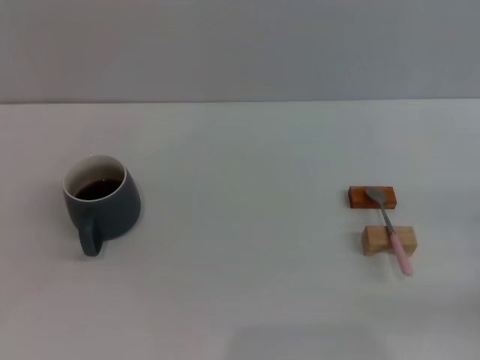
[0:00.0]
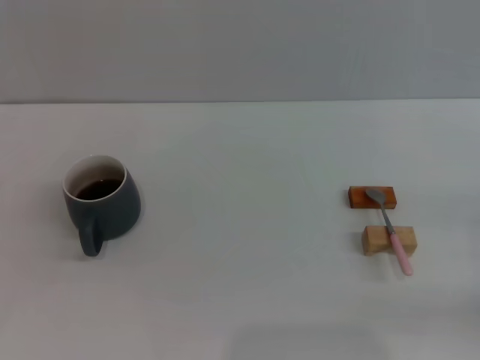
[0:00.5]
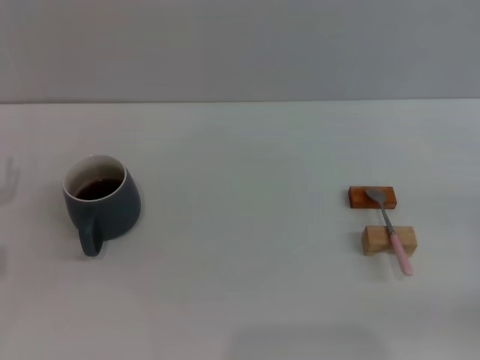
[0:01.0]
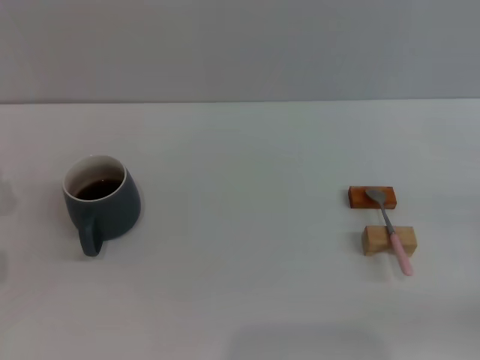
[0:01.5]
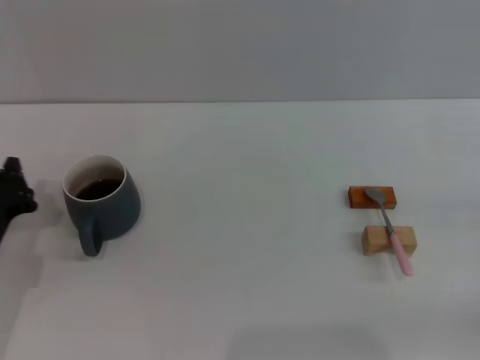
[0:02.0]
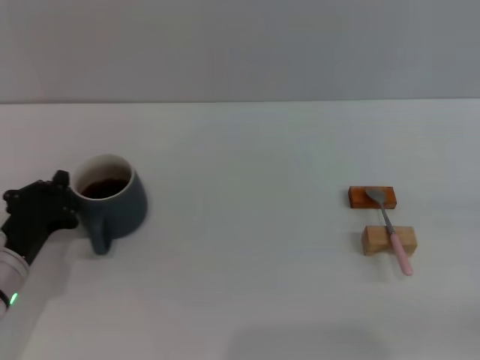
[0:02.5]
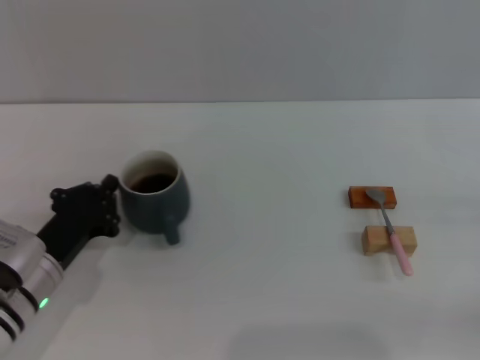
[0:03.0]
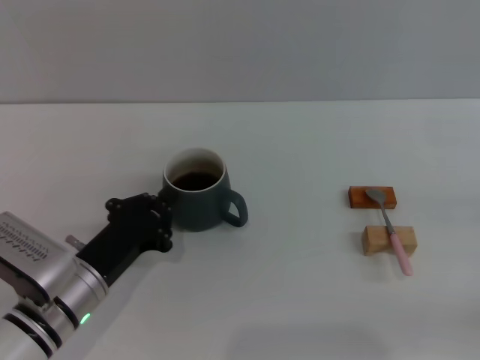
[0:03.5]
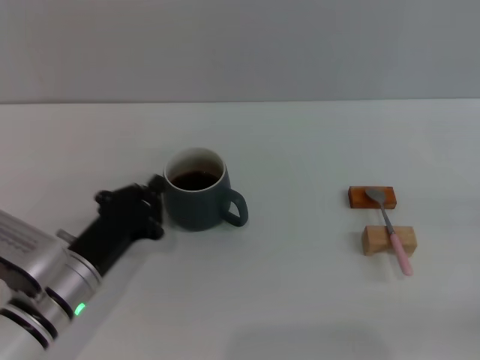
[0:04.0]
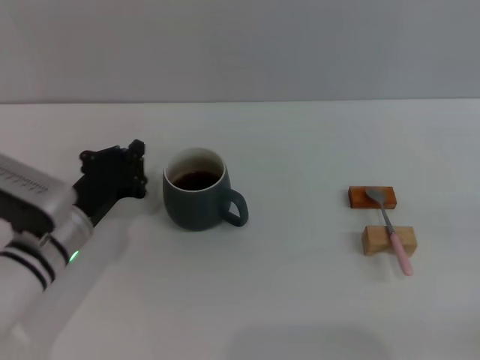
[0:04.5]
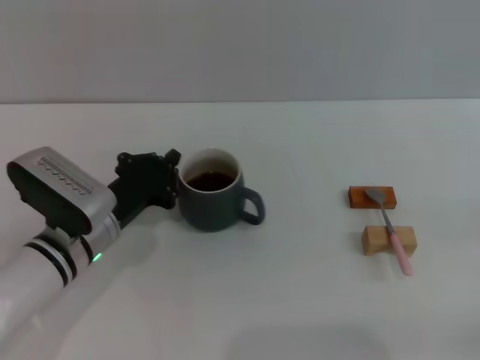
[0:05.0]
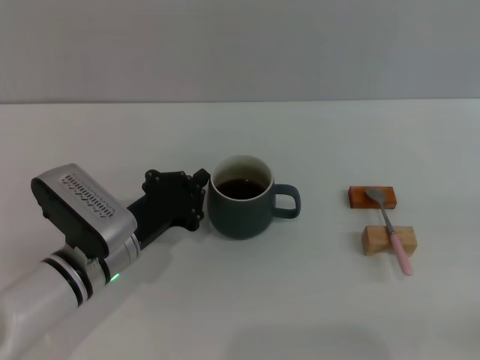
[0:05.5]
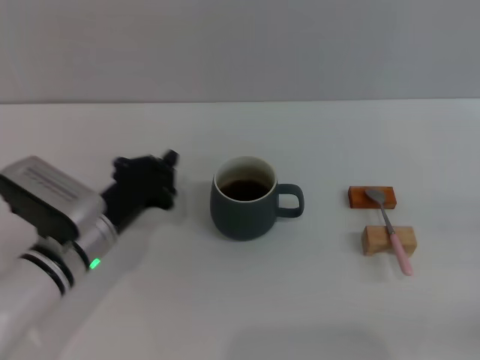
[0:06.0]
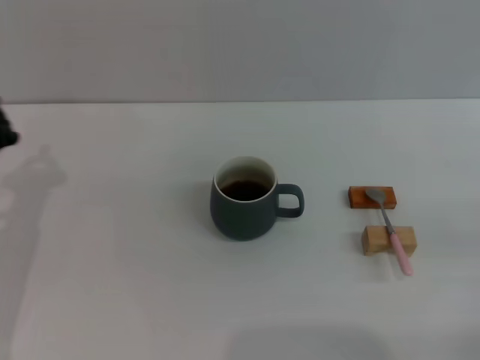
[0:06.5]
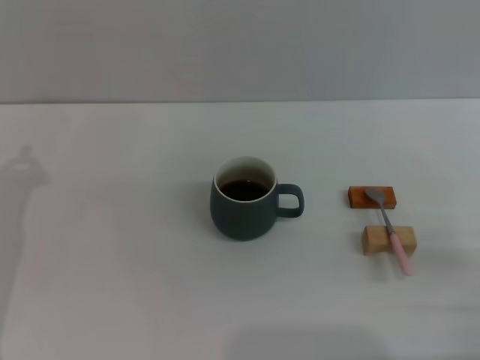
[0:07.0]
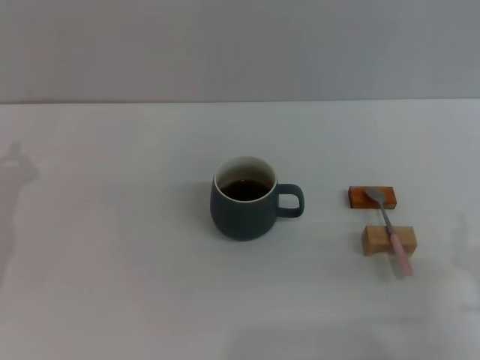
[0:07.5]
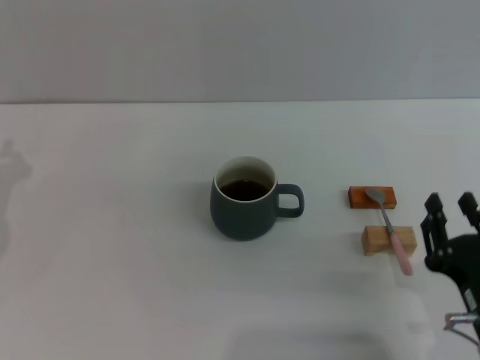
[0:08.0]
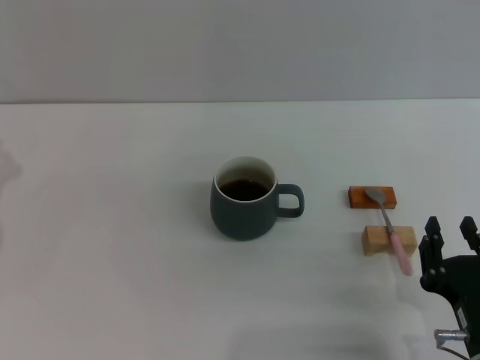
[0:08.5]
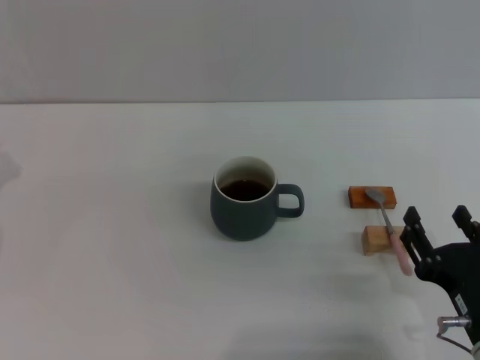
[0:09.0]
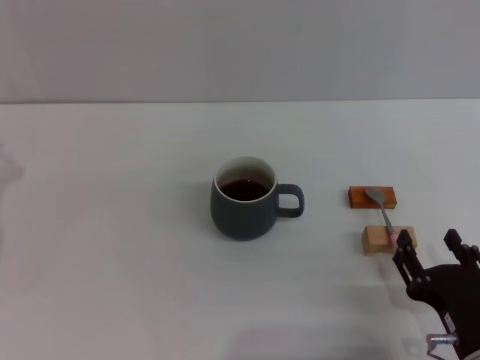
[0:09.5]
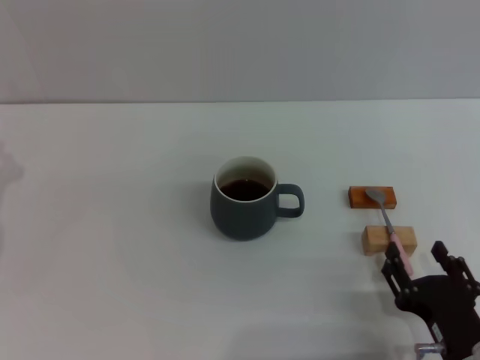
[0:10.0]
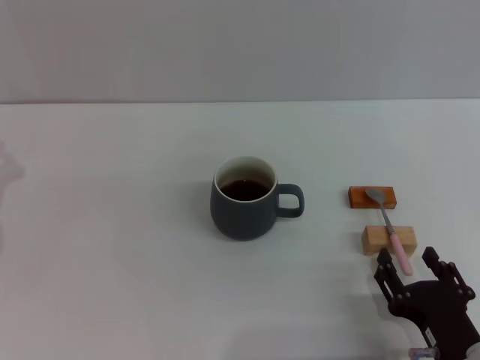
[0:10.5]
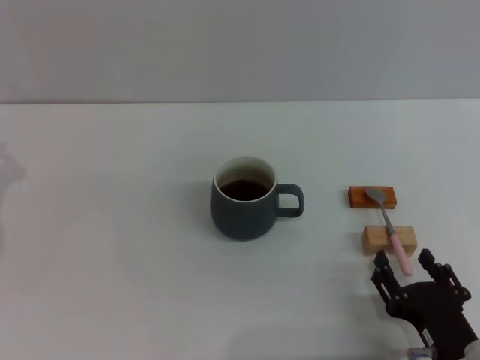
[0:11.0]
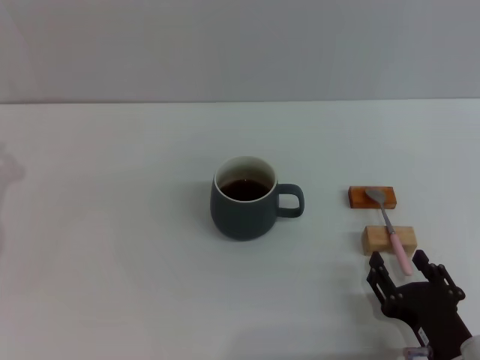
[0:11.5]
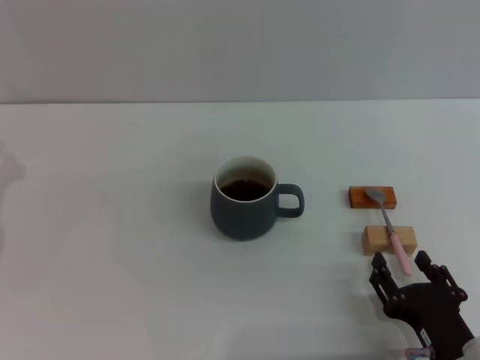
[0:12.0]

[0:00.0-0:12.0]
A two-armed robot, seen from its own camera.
Task of the whole recording: Move the grey cup to the center, lift the pink spoon, stir it three times in the cup, and put the spoon into the cup.
Step, 0:00.0 to 0:05.5: Move the cup with coffee to the center of view with the left gripper.
0:00.0 to 0:02.0: The left gripper moves to the right and downward, roughly 10 cm, and closes its fingers.
0:02.0 to 0:04.0: The left gripper shifts about 10 cm to the right.
0:06.0 to 0:08.0: Both grippers move to the left, approximately 15 cm.
0:08.0 to 0:10.0: The right gripper opens.
0:10.0 to 0:12.0: The grippers make only small movements.

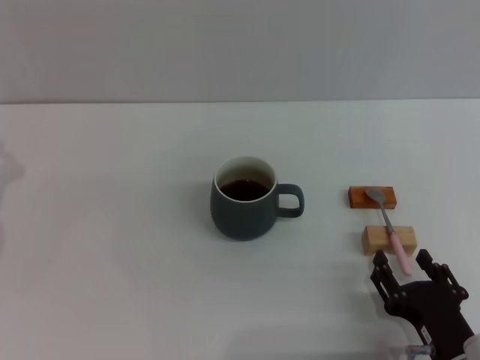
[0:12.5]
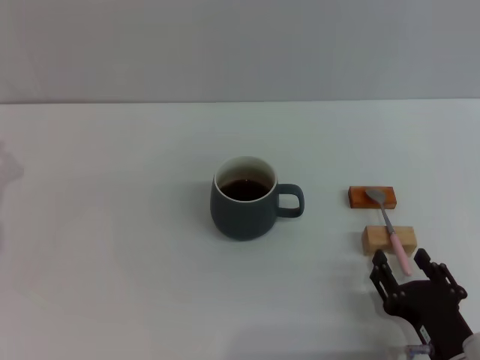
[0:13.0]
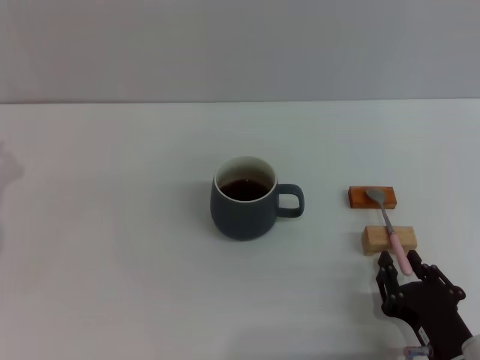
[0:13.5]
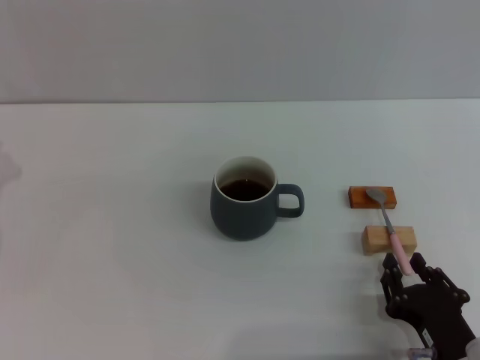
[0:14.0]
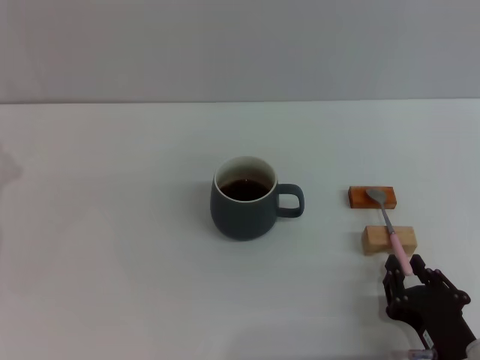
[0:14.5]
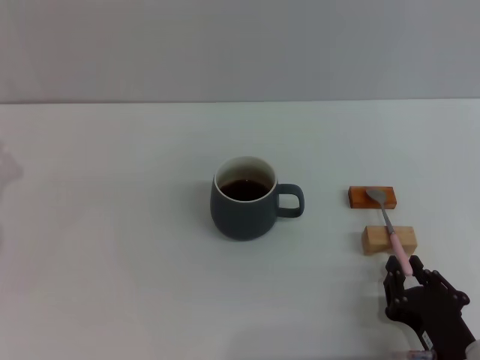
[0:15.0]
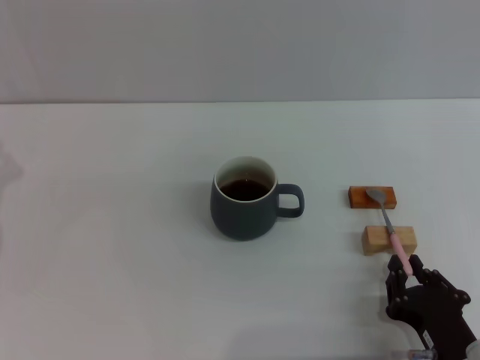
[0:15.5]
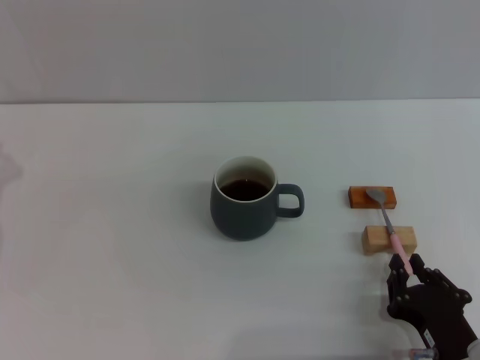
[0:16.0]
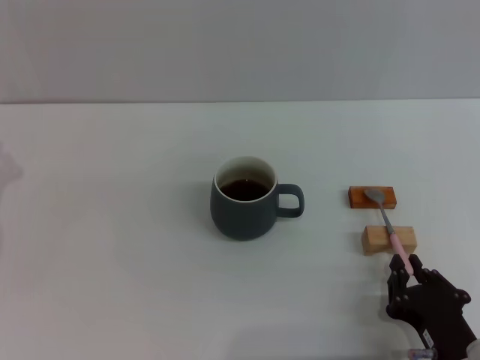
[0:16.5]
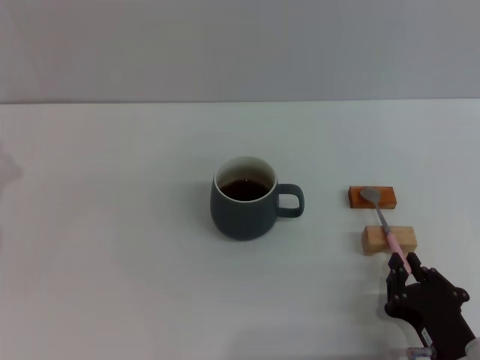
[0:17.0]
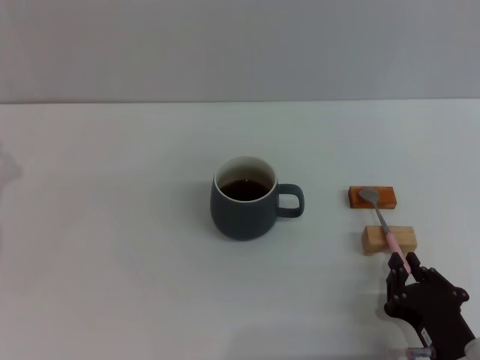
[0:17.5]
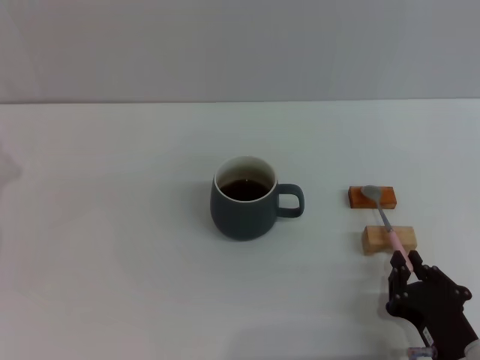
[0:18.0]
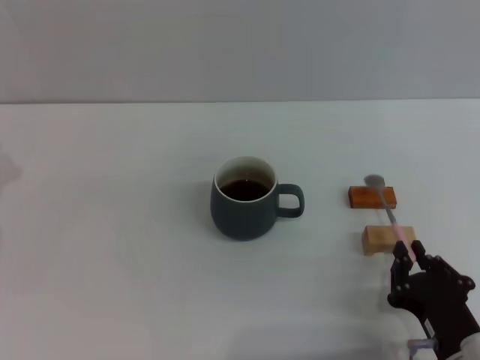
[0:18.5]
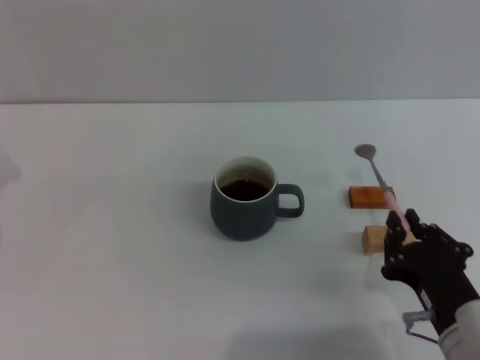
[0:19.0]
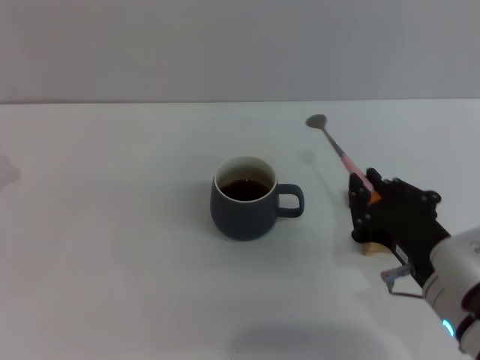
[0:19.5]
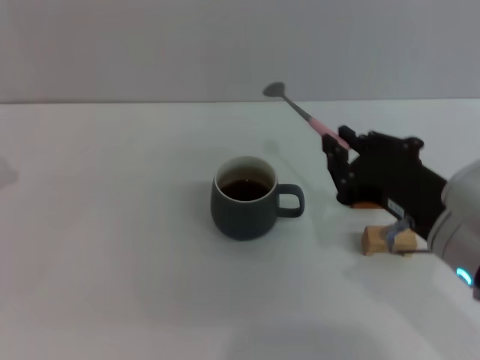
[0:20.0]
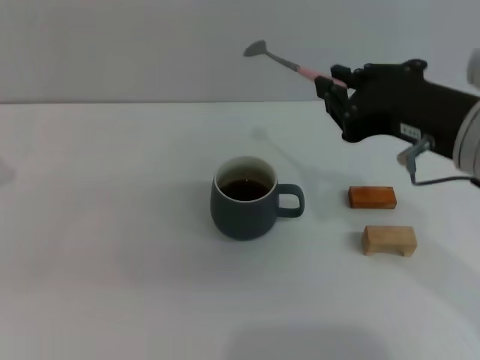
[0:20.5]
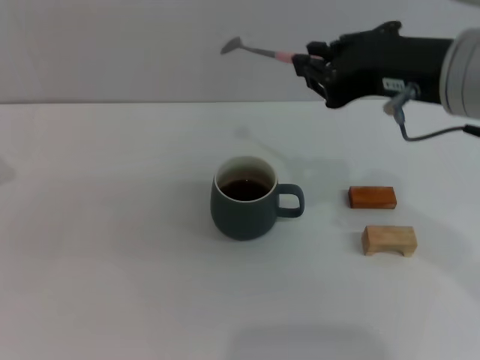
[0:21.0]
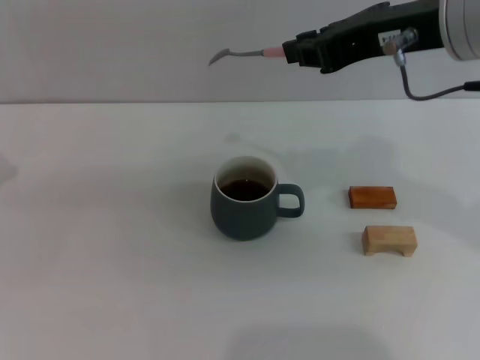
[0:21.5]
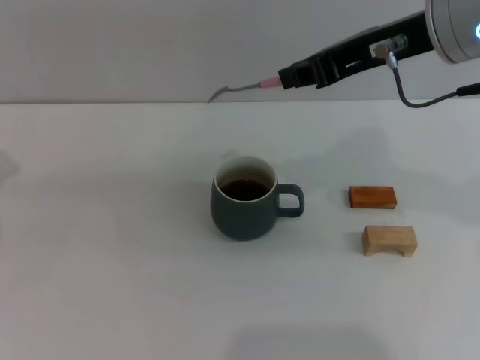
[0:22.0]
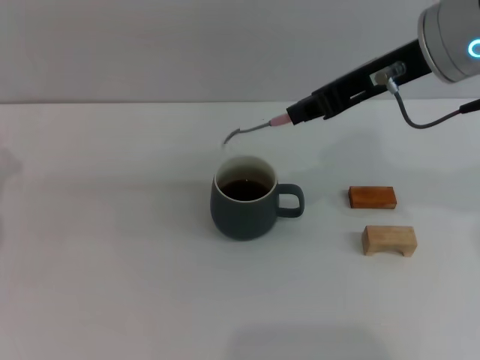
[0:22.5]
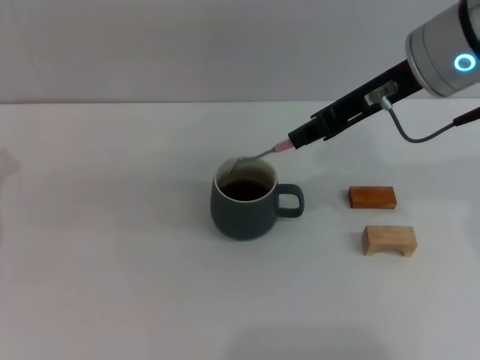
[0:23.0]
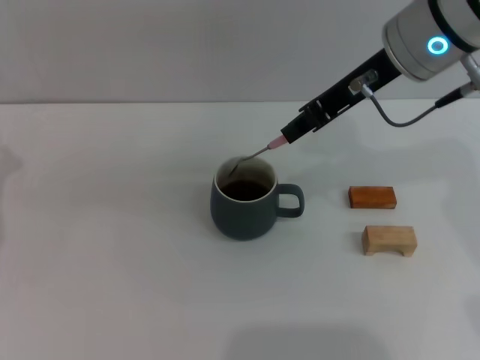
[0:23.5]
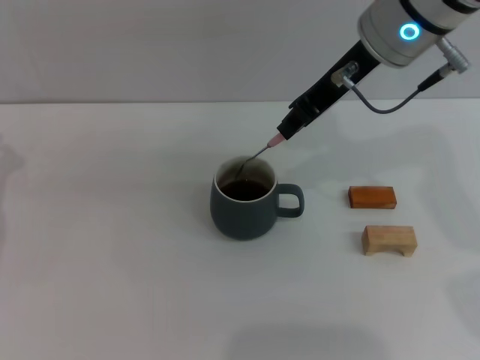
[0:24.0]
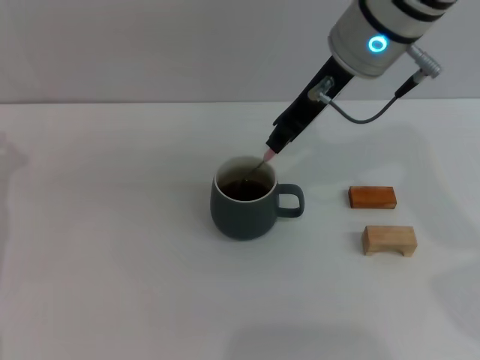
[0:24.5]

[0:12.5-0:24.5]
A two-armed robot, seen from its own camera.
Task of the whole recording: Move the grey cup to the center, lift the pink spoon, stir it three times in the cup, and put the spoon into the cup.
Step, 0:12.5 to 0:18.5: Pick up the spoon with the right gripper.
0:12.5 to 0:14.5: The right gripper closes its fingers.
0:14.5 to 0:16.5: Both grippers stay put.
0:16.5 to 0:18.5: The grippers stay close to where they were, moving slightly.
0:18.5 to 0:20.5: The right gripper moves upward and forward, about 25 cm.
0:20.5 to 0:22.5: The right gripper goes approximately 10 cm forward and upward.
0:22.5 to 0:24.5: The right gripper is displaced to the left and forward by about 10 cm.

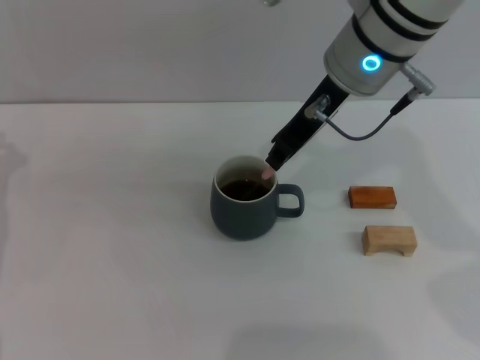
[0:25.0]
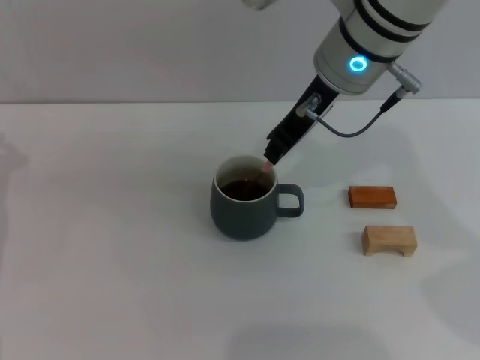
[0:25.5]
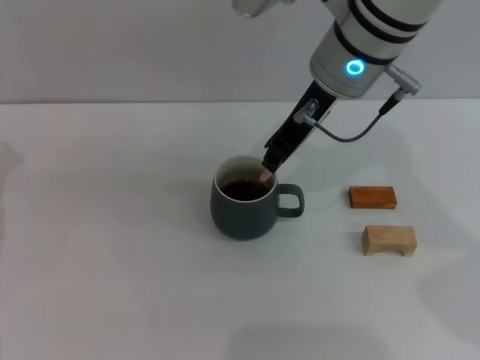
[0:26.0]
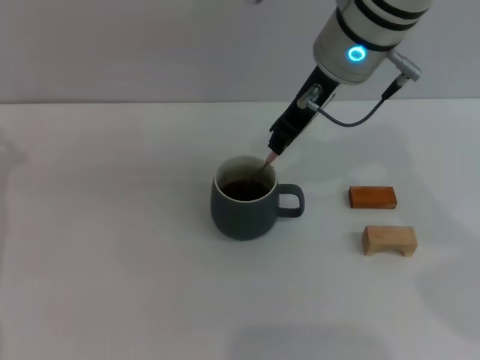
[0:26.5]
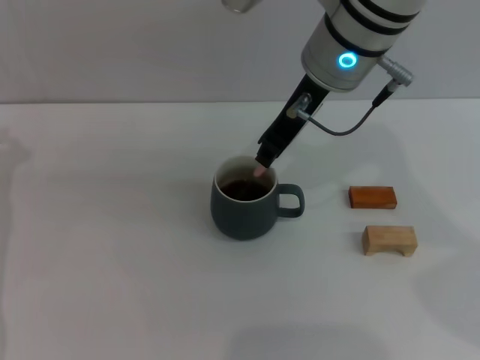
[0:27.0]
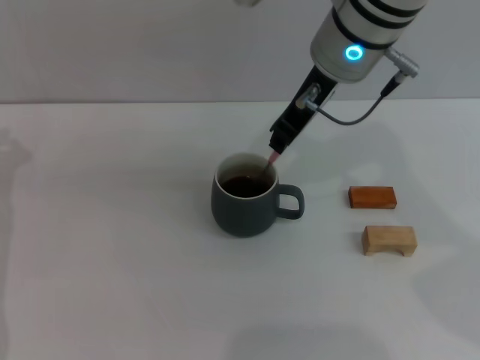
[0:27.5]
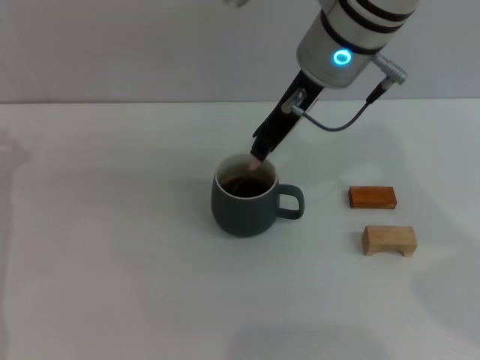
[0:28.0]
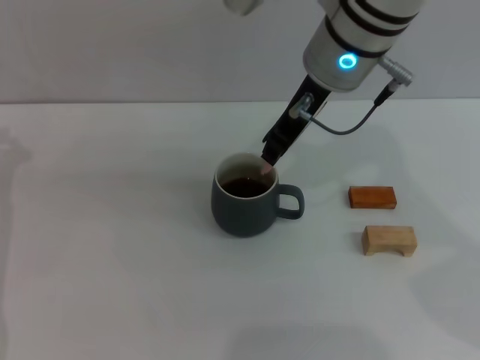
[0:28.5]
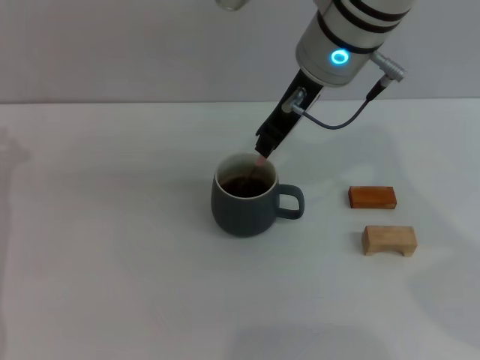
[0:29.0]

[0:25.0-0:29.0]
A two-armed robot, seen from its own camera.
Task of the whole recording: Move the grey cup to the center, lift the pink spoon, stir it three times in the cup, and put the spoon into the cup.
0:25.0 to 0:27.0: The grippers stay close to where they were, moving slightly.
0:27.0 to 0:29.0: The two grippers keep their place.
